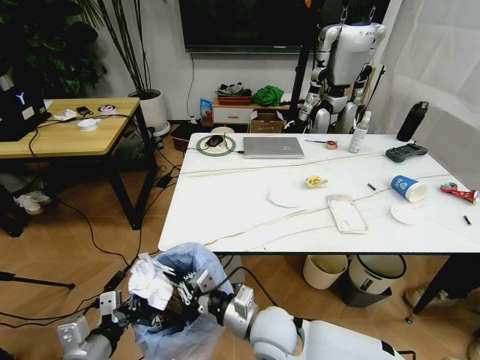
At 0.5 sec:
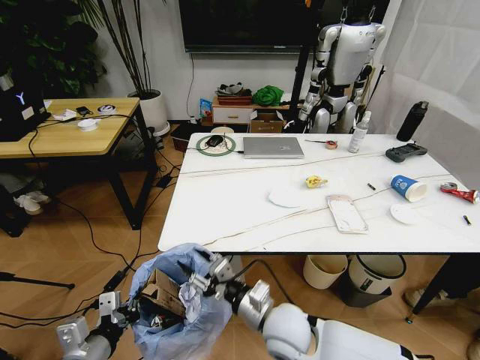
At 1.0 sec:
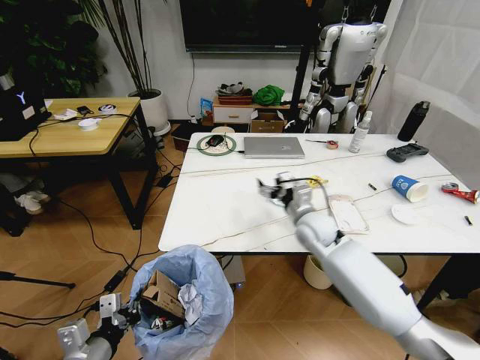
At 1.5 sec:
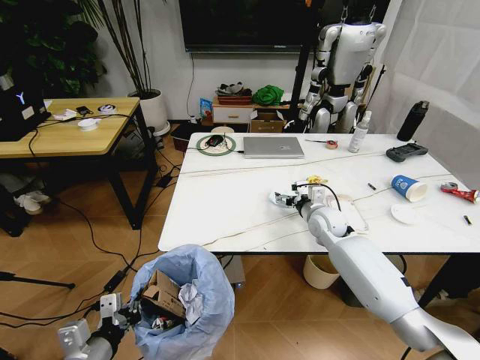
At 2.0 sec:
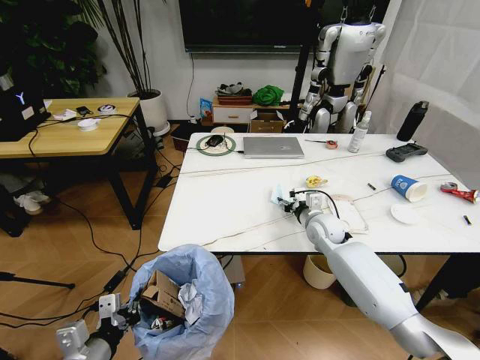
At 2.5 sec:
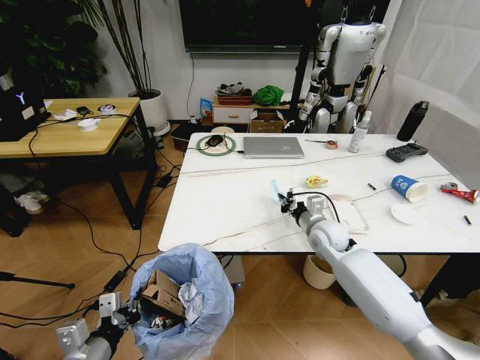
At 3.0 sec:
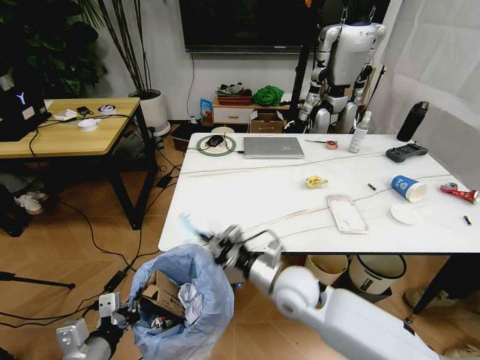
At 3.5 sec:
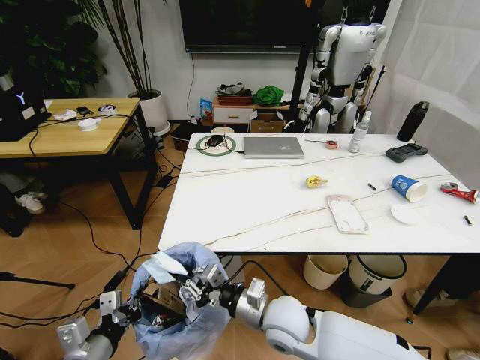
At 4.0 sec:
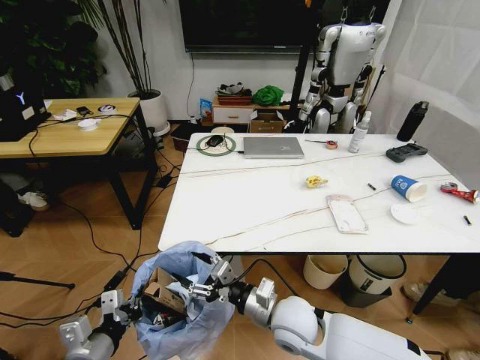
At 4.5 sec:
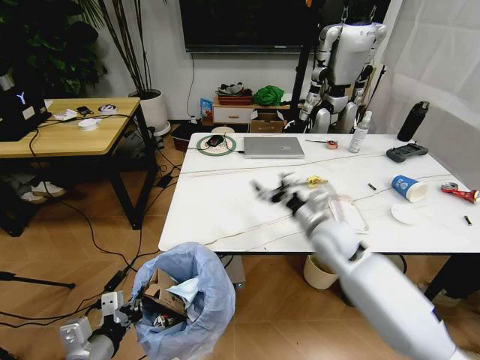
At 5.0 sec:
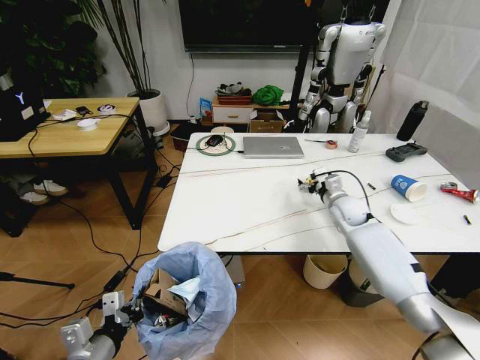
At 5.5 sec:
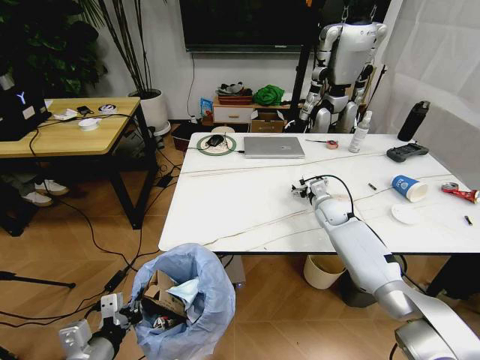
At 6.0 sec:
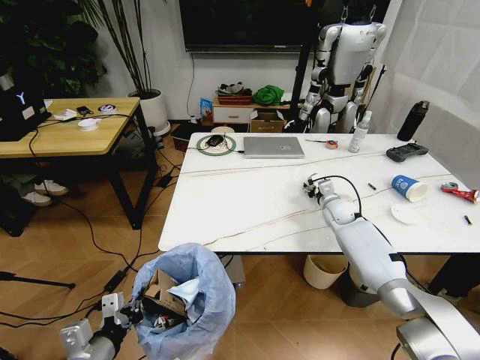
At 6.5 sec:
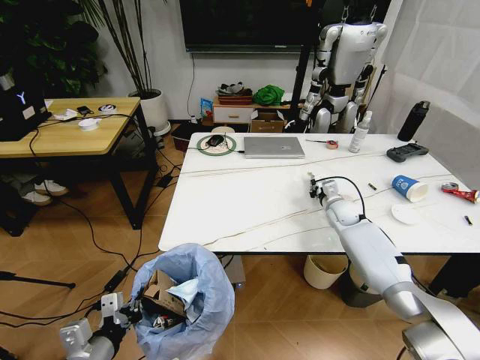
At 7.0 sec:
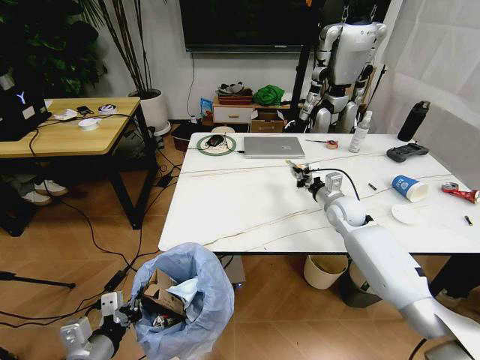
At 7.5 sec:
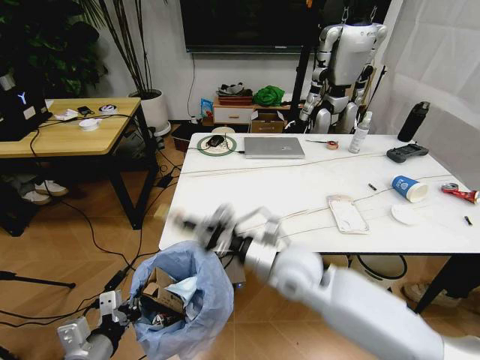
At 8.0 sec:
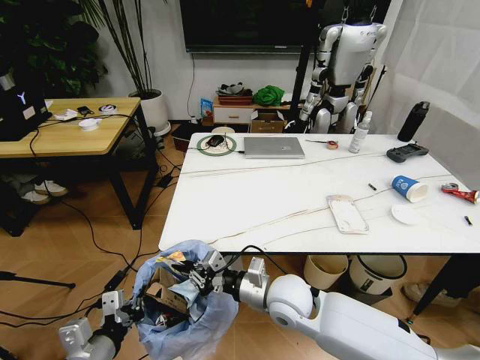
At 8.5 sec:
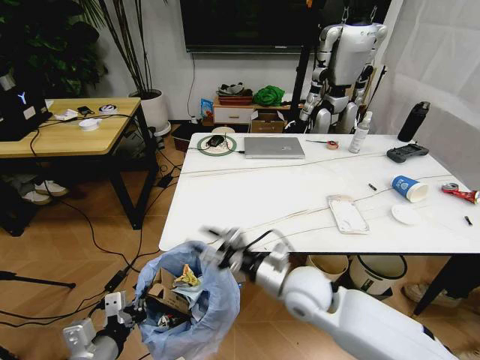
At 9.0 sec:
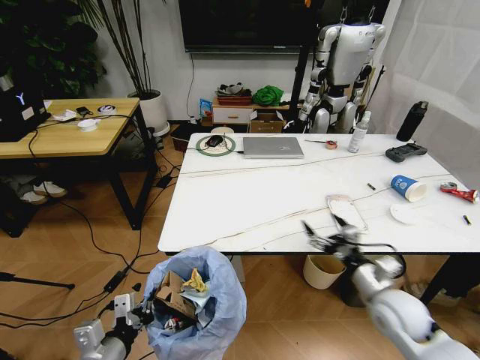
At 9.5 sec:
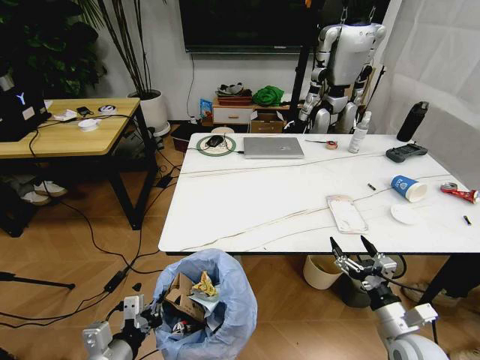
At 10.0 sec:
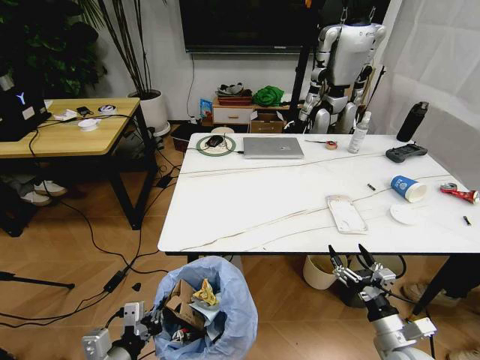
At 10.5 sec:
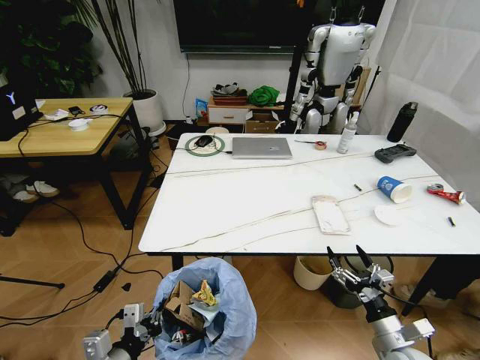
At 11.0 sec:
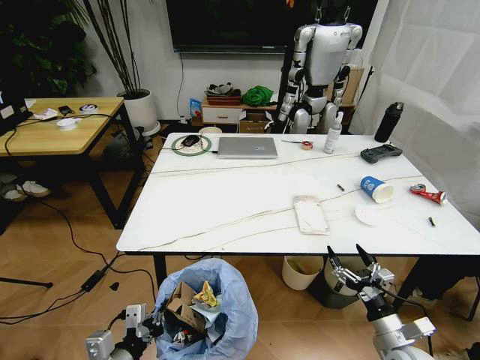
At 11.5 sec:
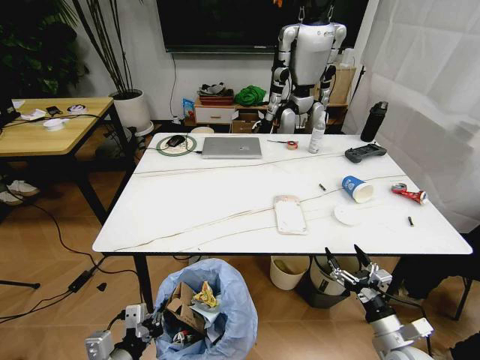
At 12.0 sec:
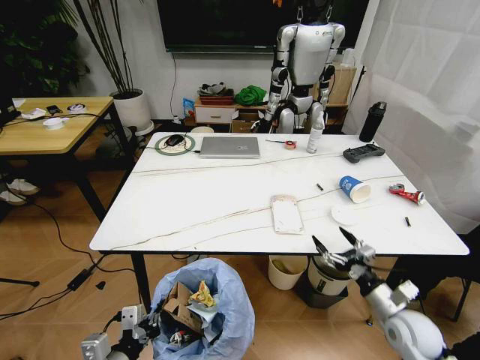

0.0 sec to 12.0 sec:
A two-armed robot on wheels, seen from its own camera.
Task of the whole recording: Pick up the trash bin and place the trash from the table into it.
0.0 sec to 2.0 sec: The right gripper moves forward and to the right, approximately 30 cm, and opens up.
2.0 sec to 4.0 sec: The right gripper goes about 25 cm backward and to the left, and closes, then reopens.
4.0 sec to 6.0 sec: The right gripper goes some 35 cm forward and to the right.
6.0 sec to 8.0 sec: The right gripper goes about 35 cm backward and to the left, and closes up.
8.0 sec to 10.0 sec: The right gripper travels to the right and backward by some 30 cm, and opens.
10.0 sec to 12.0 sec: The right gripper goes some 5 cm forward.

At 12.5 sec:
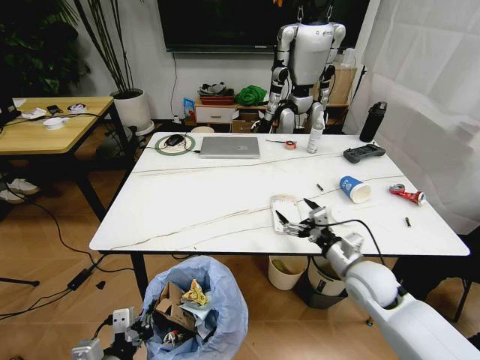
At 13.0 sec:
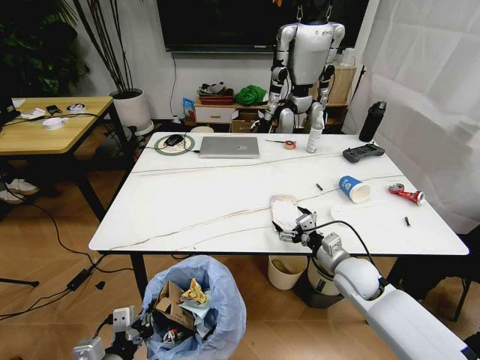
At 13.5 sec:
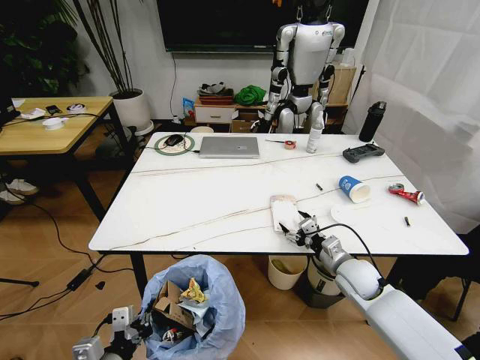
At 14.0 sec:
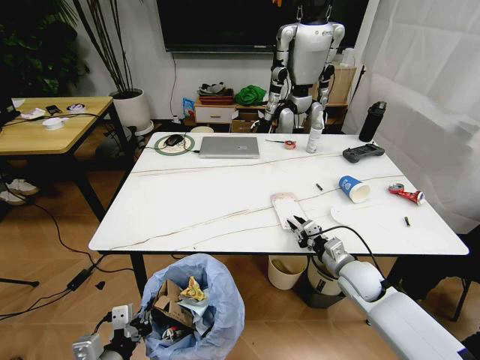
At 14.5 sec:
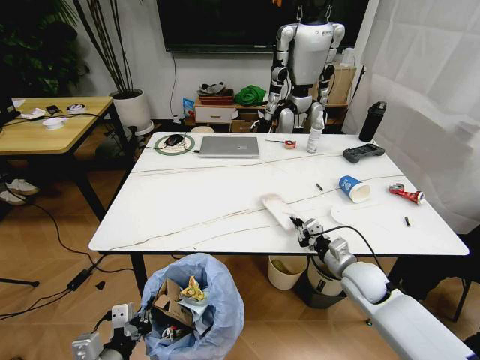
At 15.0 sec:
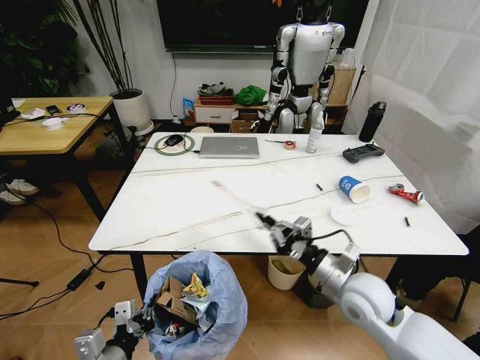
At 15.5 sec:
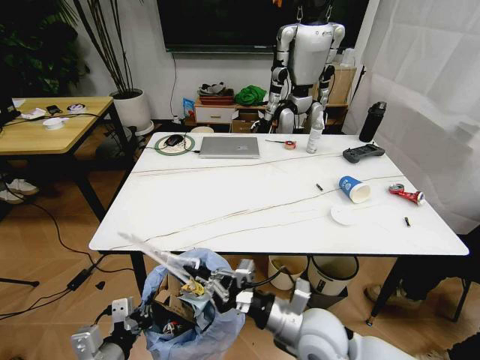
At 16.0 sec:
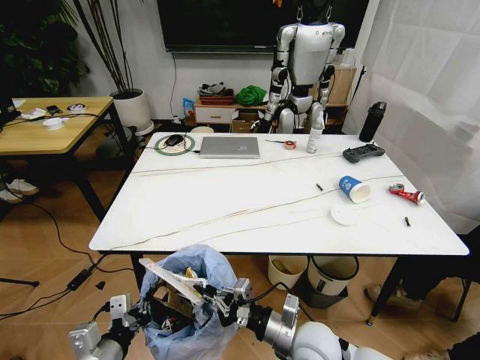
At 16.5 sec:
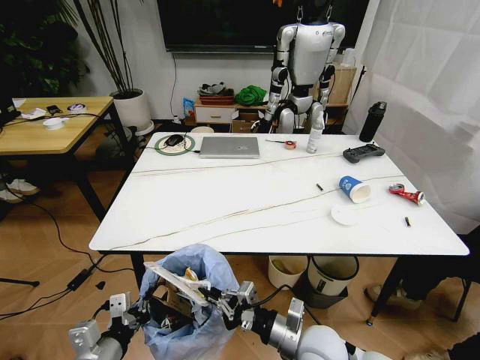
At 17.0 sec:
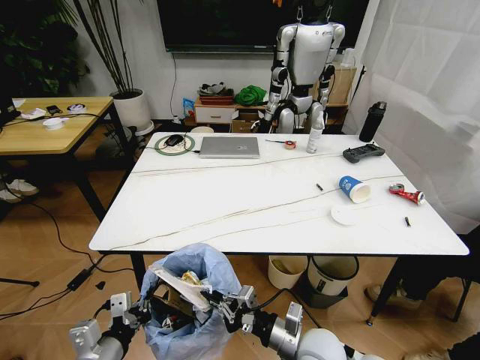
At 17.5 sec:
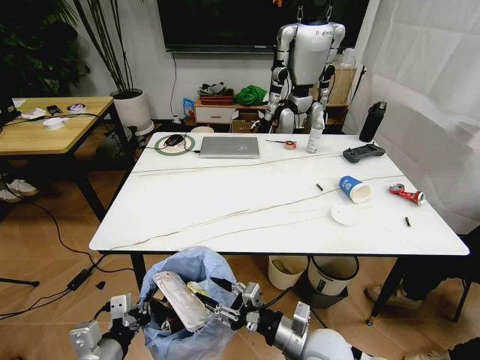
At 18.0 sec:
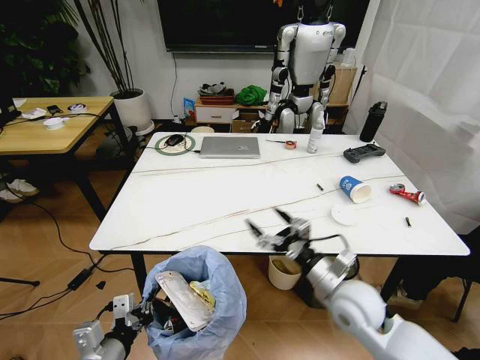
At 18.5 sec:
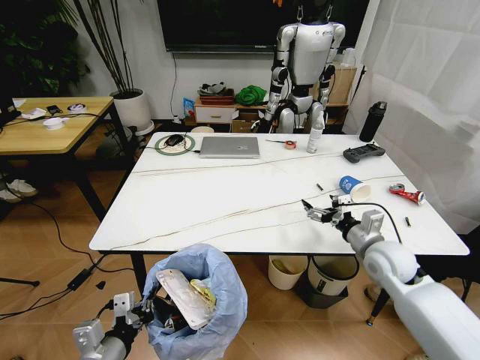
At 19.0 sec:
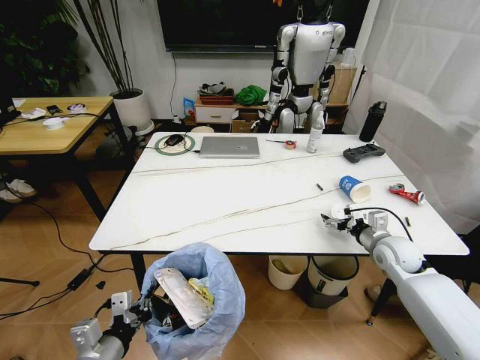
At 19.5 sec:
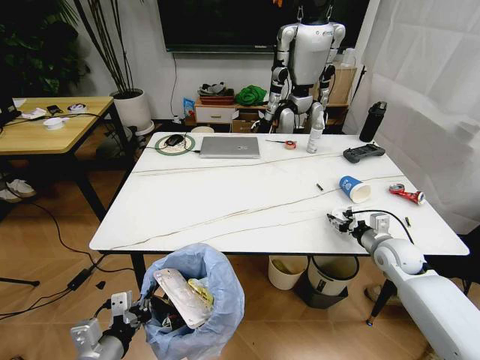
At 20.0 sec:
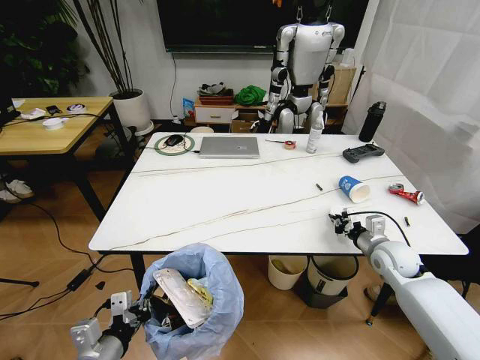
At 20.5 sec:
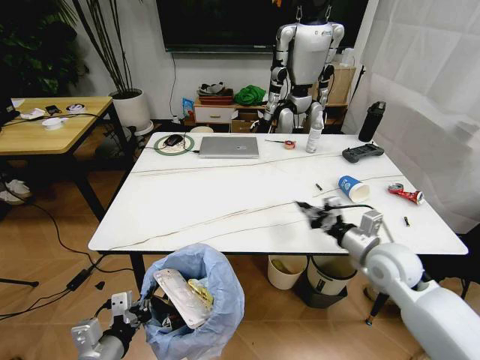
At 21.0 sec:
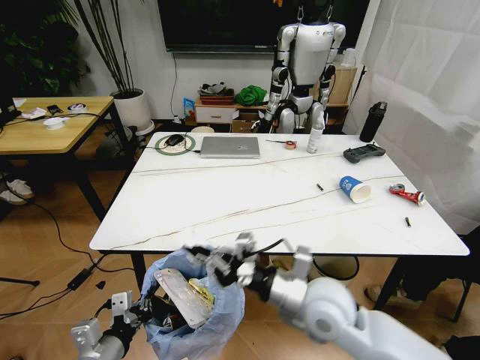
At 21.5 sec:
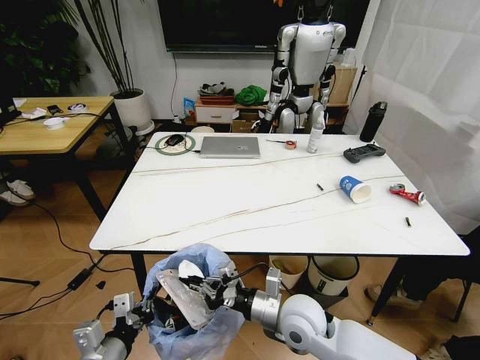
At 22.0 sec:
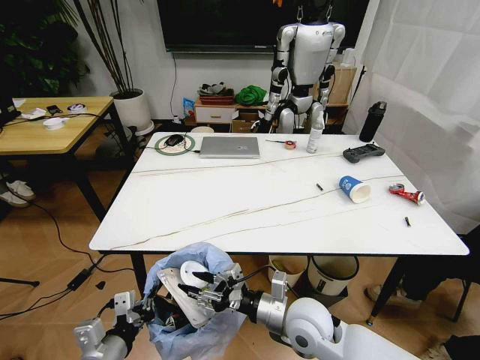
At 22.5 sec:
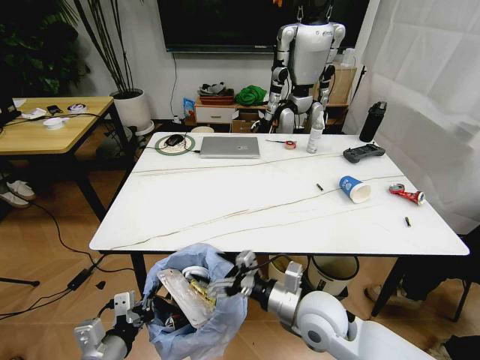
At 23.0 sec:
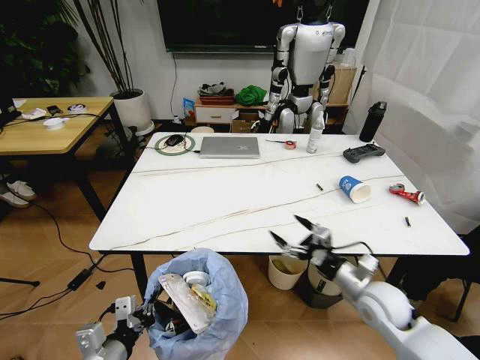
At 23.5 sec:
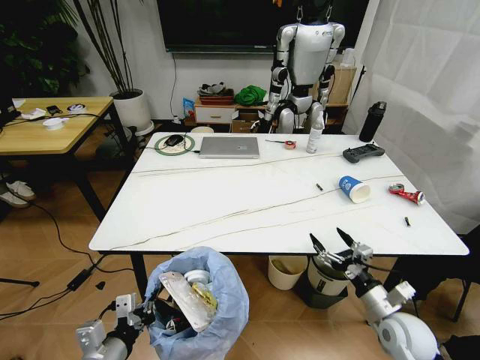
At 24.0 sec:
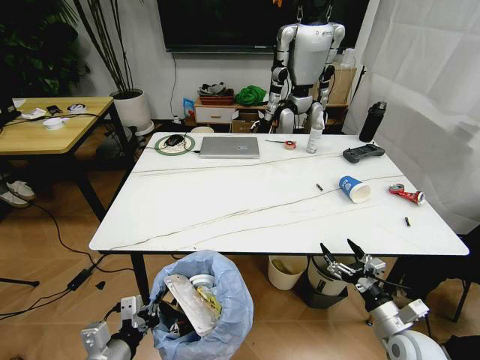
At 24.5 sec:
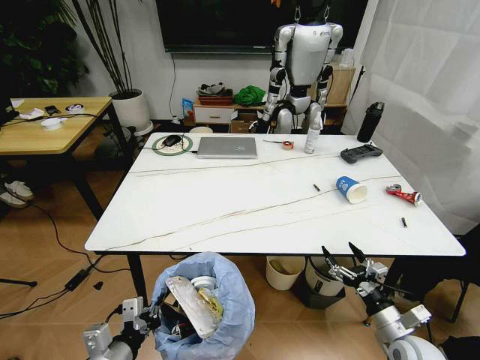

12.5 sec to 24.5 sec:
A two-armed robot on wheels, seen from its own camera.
Task of the whole recording: Pick up the trash bin and place the trash from the table into it.
12.5 sec to 14.5 sec: The right gripper shifts some 5 cm downward, and closes up.
14.5 sec to 16.5 sec: The right gripper shifts about 20 cm backward and to the left.
16.5 sec to 18.5 sec: The right gripper is displaced to the right, forward and upward by approximately 25 cm, and opens up.
18.5 sec to 20.5 sec: The right gripper closes up.
20.5 sec to 22.5 sec: The right gripper is displaced to the left and backward by roughly 20 cm, and opens its fingers.
22.5 sec to 24.5 sec: The right gripper goes about 25 cm to the right and downward.

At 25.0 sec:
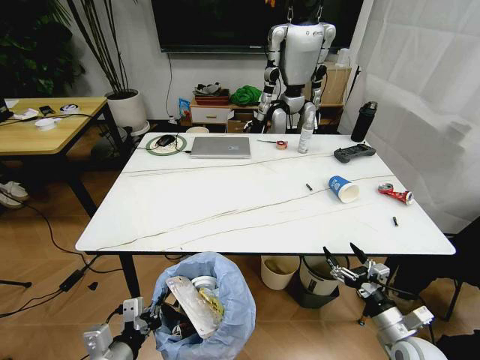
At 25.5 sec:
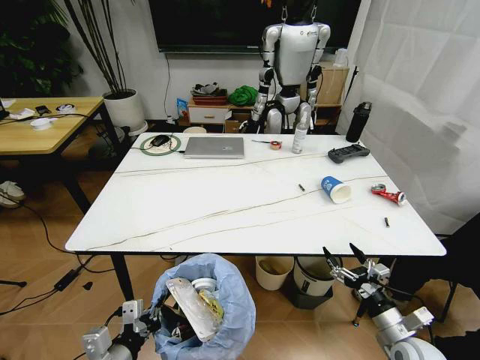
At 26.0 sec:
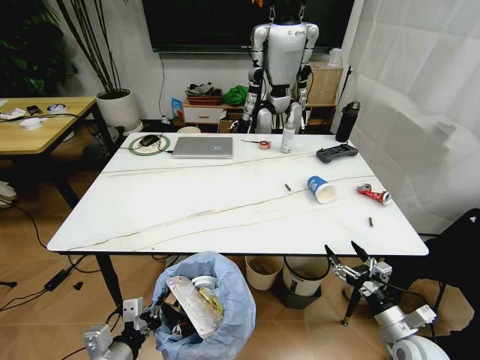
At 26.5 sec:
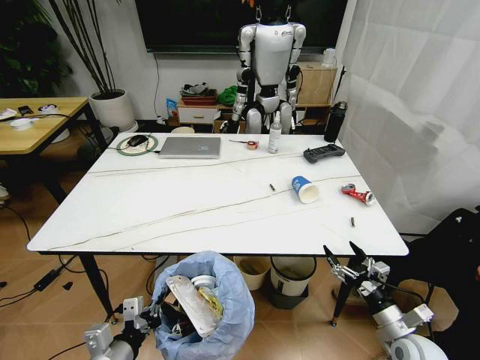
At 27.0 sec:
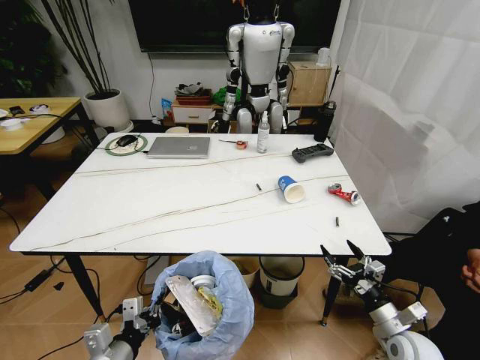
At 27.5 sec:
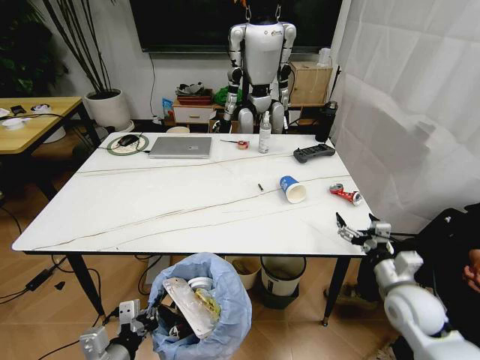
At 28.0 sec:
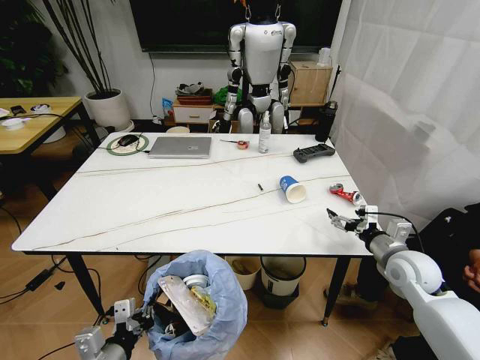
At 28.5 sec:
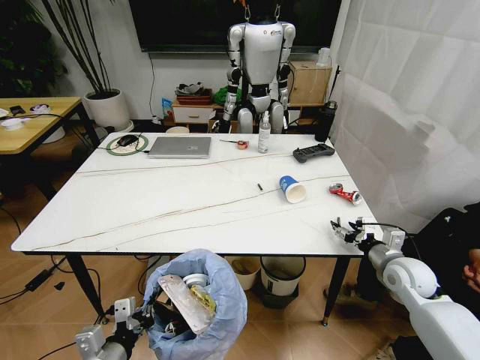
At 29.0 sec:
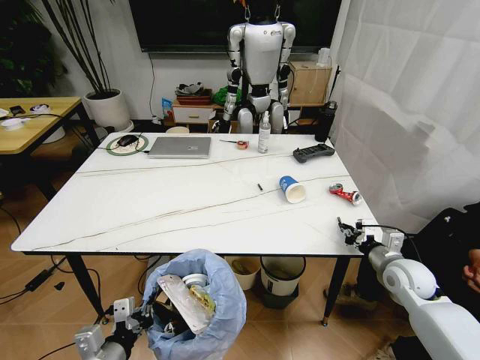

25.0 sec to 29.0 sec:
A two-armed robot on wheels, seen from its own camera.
Task of the whole recording: Pick up the trash bin and place the trash from the table into it.
27.0 sec to 29.0 sec: The right gripper heads forward and upward, covering about 15 cm, and closes up.
